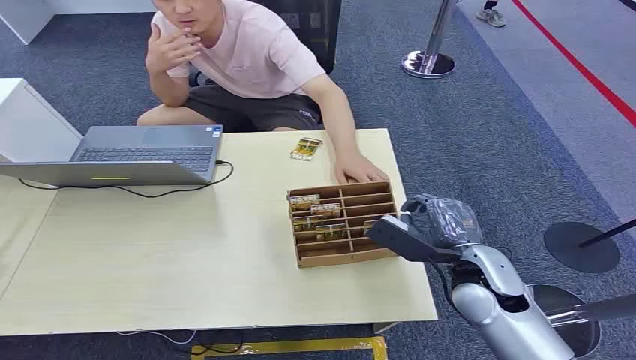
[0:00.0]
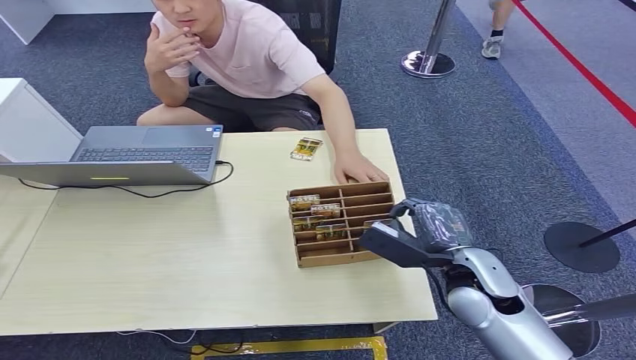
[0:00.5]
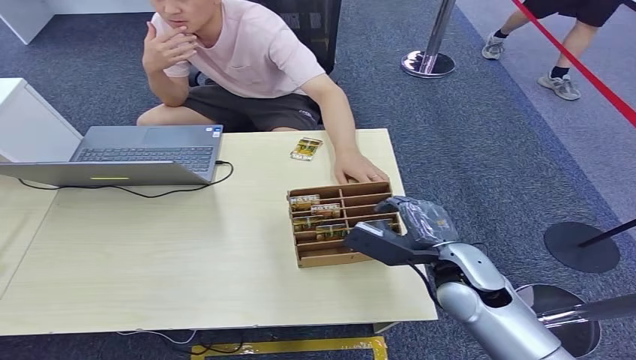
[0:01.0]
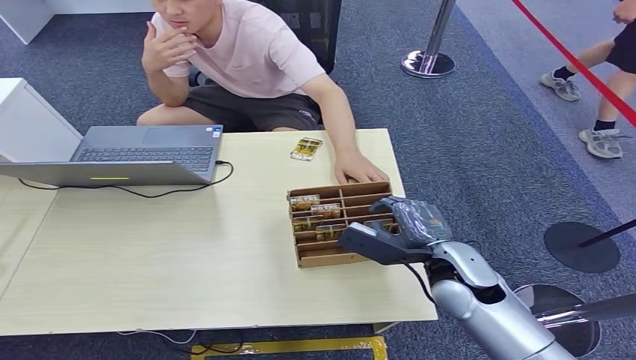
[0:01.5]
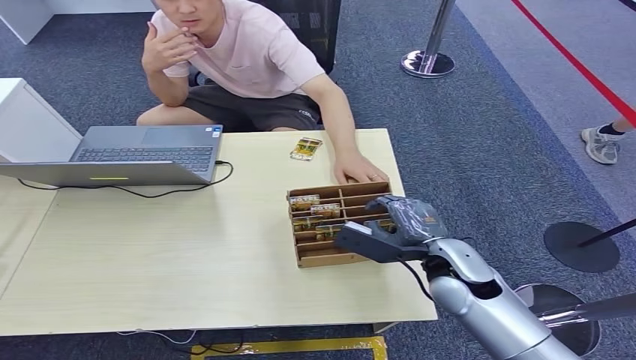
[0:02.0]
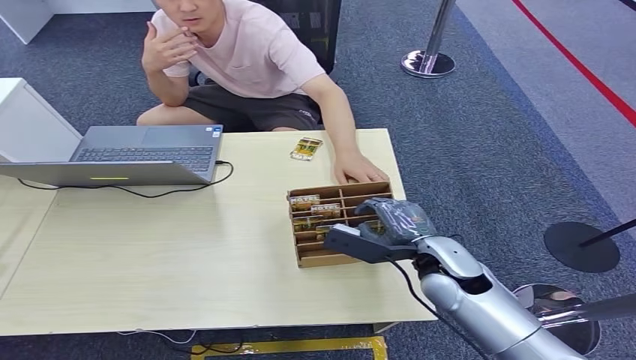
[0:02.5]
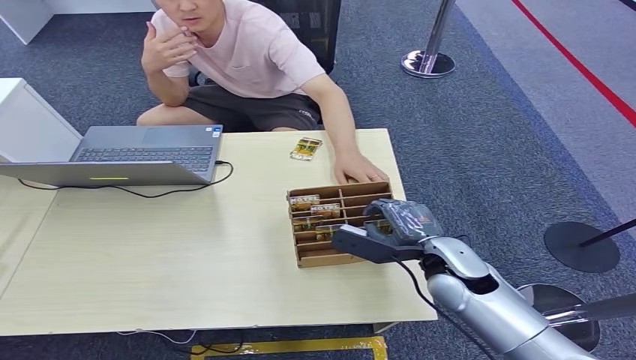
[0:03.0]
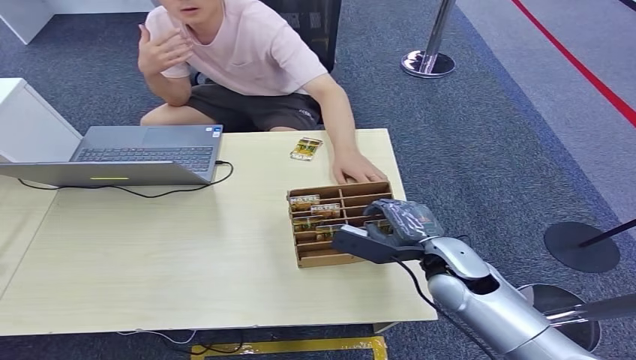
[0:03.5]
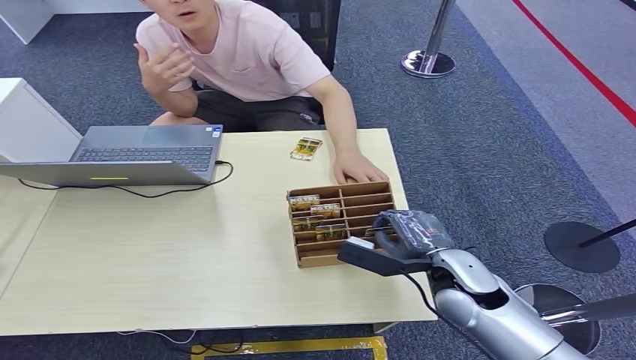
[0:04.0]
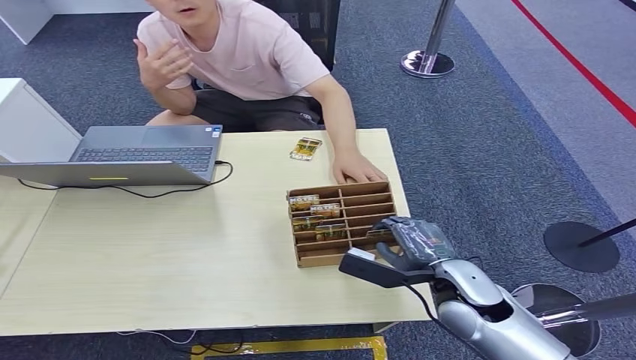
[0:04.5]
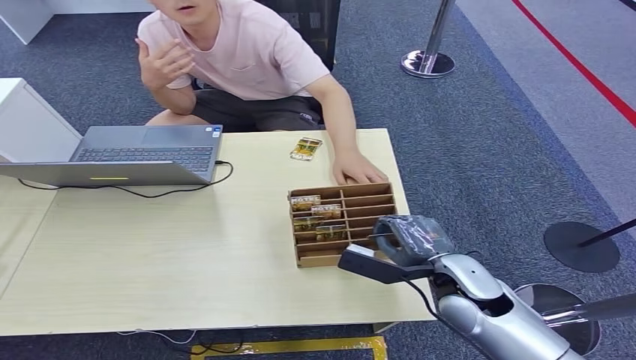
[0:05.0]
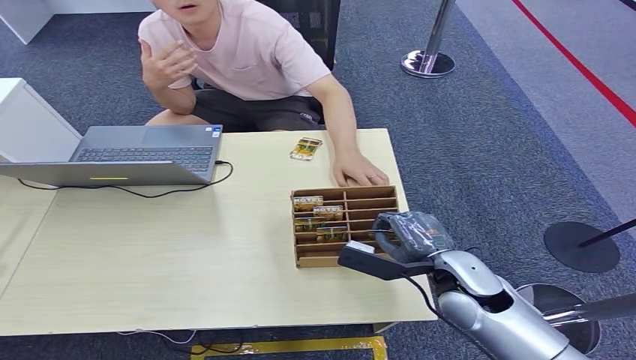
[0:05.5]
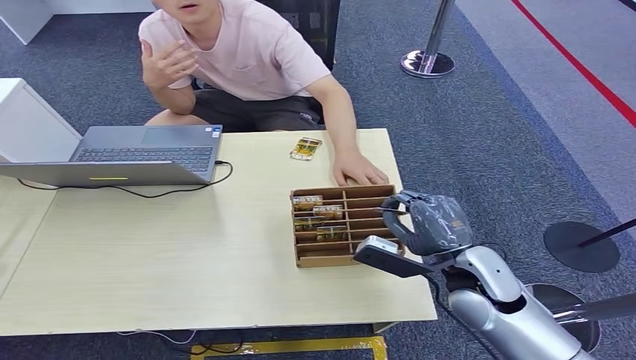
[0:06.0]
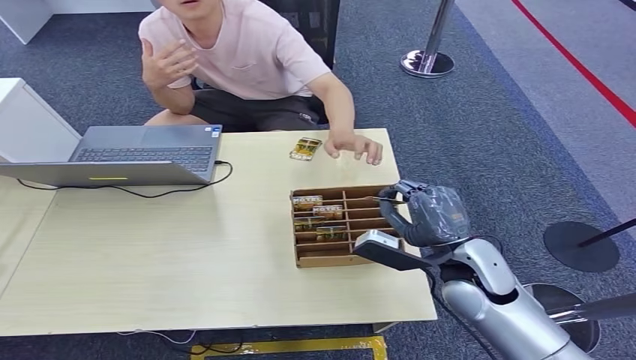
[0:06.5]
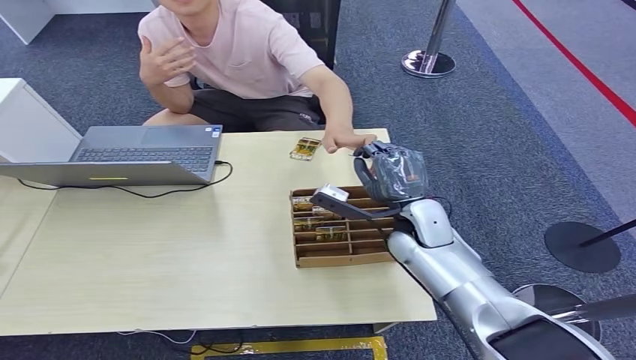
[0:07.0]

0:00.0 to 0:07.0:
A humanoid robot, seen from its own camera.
Step, 0:00.0 to 0:06.5: Pick up the key card from the card box.
0:02.0 to 0:05.0: The hands make only small movements.
0:05.0 to 0:07.0: The right hand travels forward by some 10 cm.

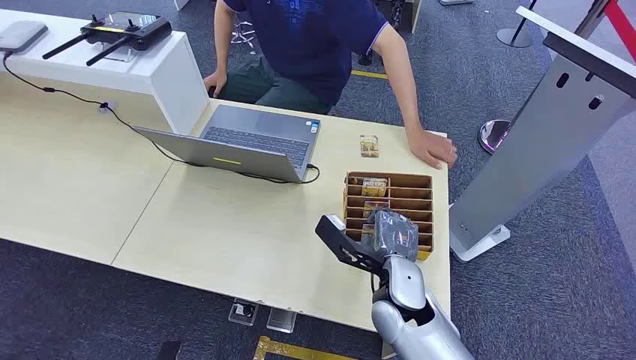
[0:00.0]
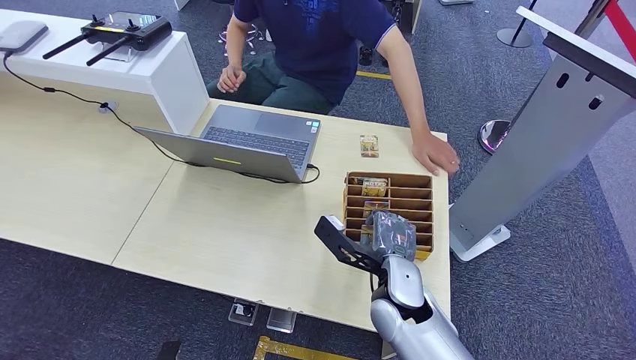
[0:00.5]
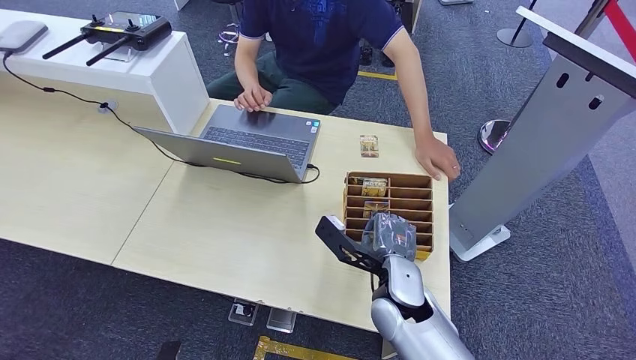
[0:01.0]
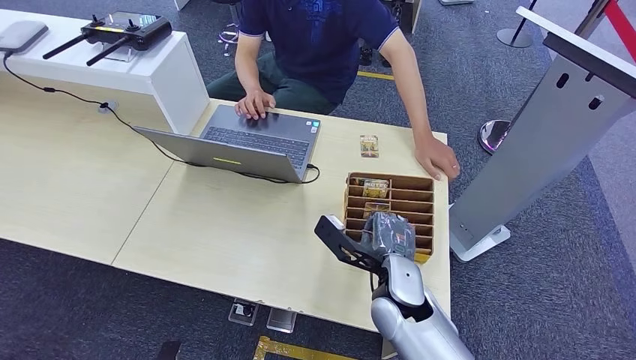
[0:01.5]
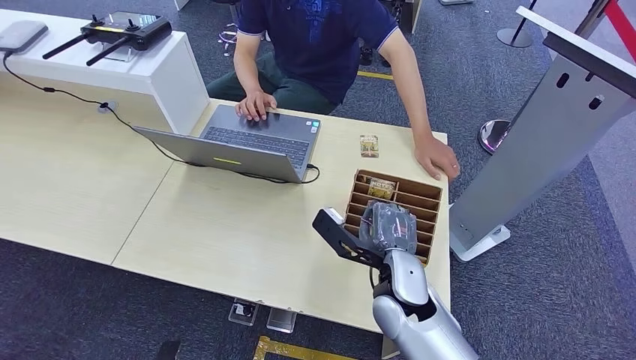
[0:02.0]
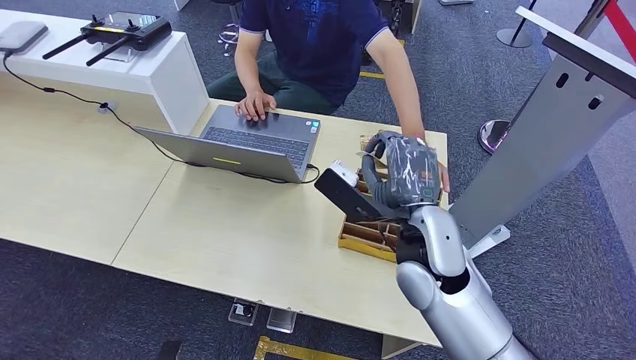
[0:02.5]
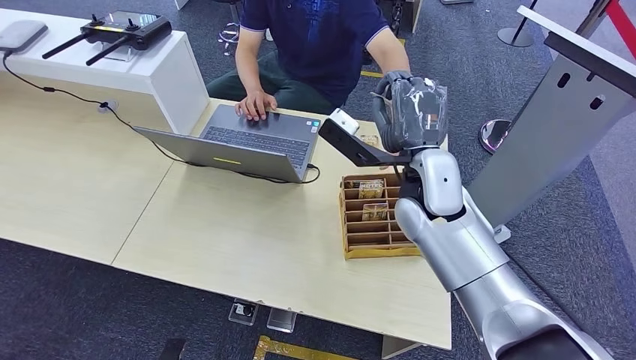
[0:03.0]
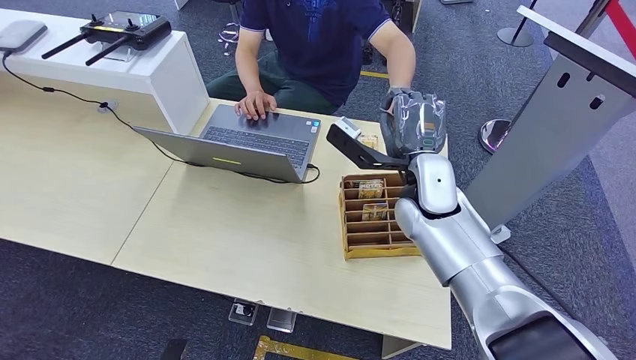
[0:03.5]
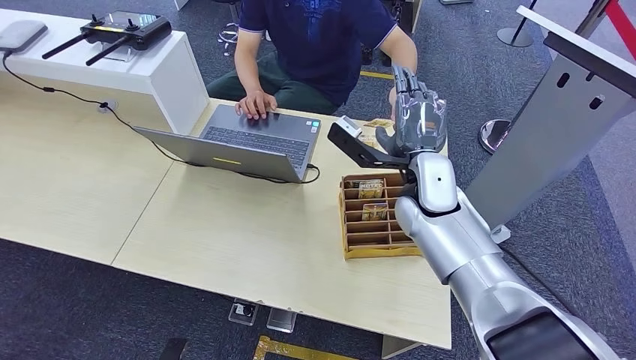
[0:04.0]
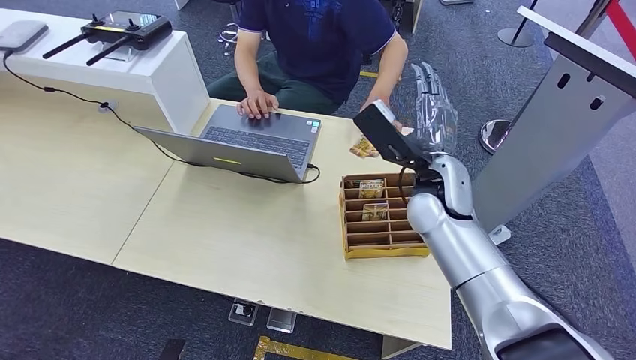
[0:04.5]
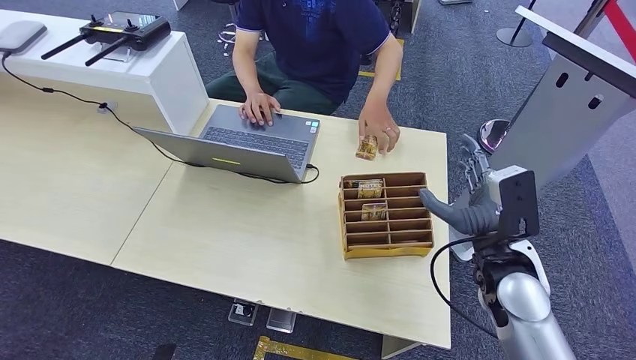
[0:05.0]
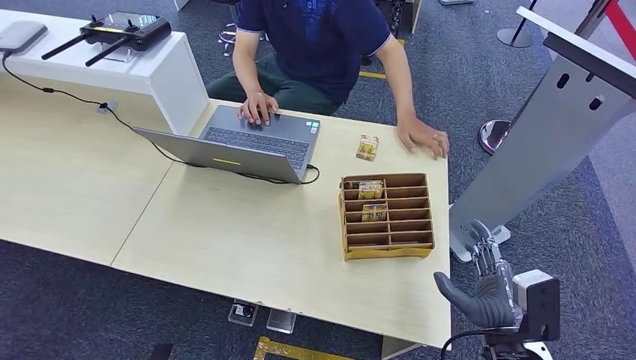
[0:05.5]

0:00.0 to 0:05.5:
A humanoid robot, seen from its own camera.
Step, 0:00.0 to 0:02.0: Pick up the key card from the card box.
Step, 0:02.5 to 0:05.0: Hand the key card to the target.
0:02.0 to 0:03.5: The right hand goes about 15 cm forward and upward.
0:03.5 to 0:05.5: The right hand heads backward, to the right and downward, covering about 30 cm.
